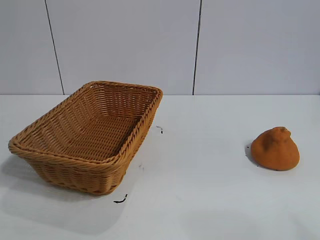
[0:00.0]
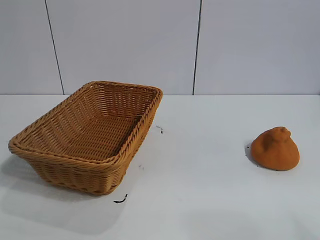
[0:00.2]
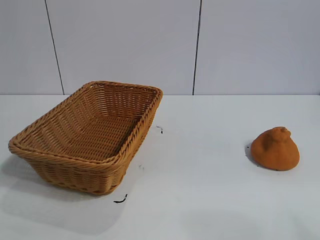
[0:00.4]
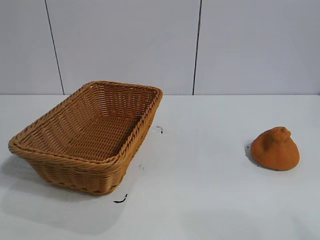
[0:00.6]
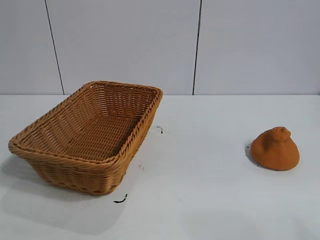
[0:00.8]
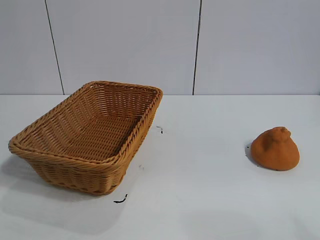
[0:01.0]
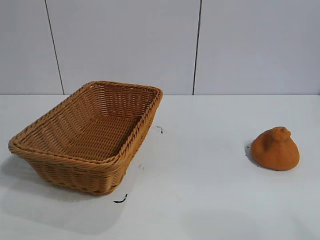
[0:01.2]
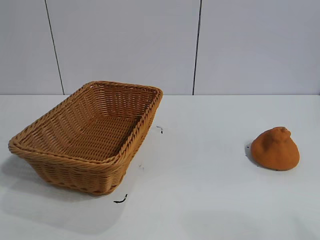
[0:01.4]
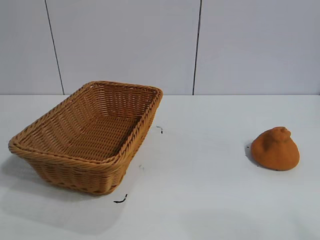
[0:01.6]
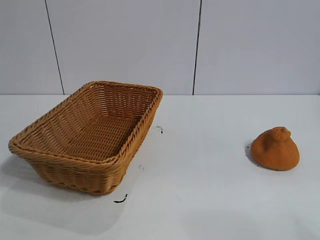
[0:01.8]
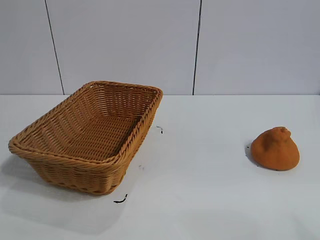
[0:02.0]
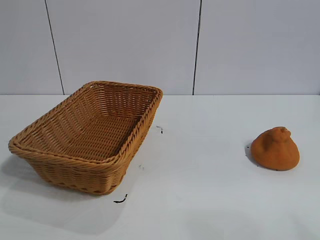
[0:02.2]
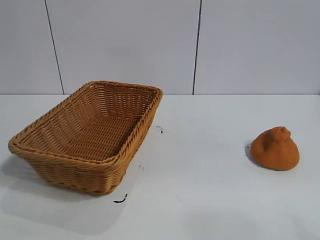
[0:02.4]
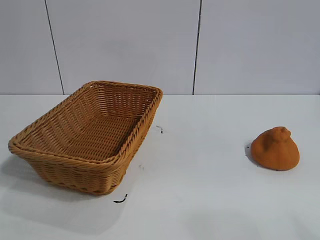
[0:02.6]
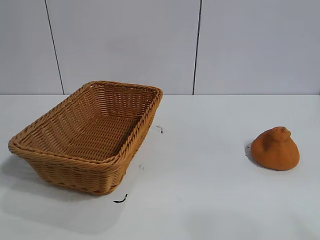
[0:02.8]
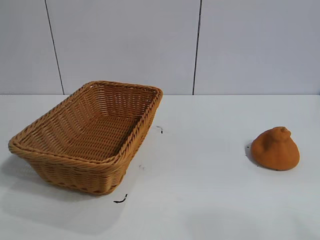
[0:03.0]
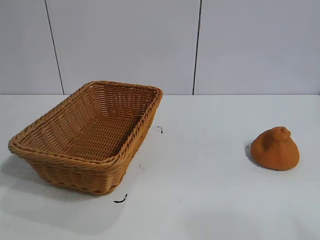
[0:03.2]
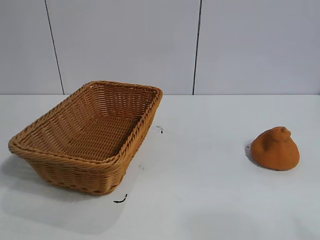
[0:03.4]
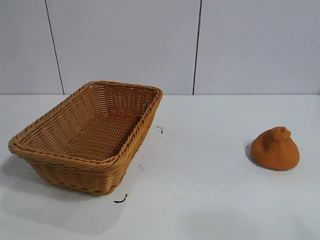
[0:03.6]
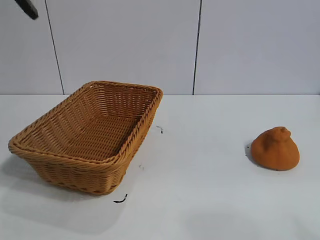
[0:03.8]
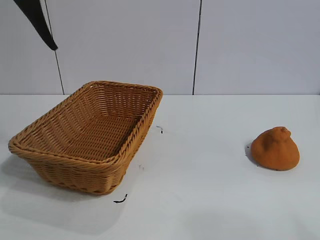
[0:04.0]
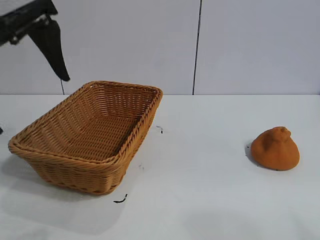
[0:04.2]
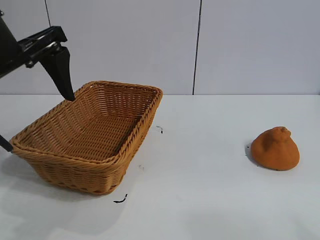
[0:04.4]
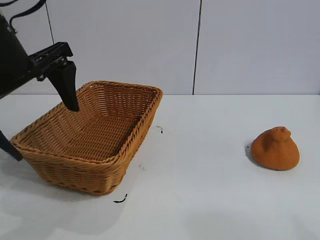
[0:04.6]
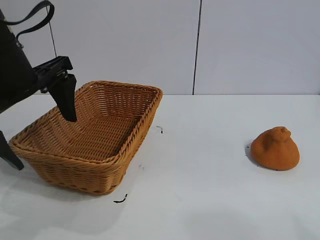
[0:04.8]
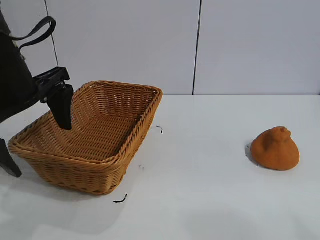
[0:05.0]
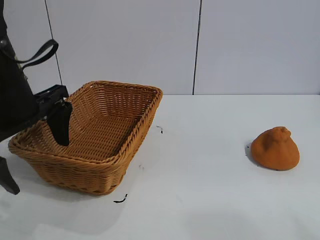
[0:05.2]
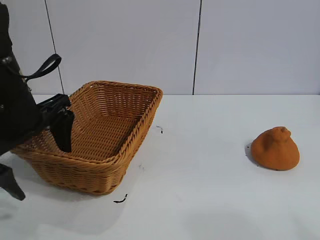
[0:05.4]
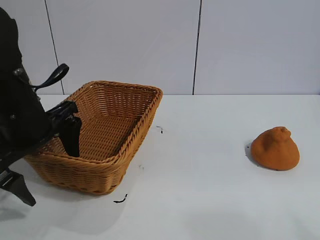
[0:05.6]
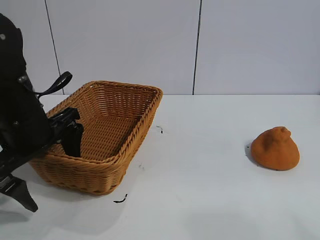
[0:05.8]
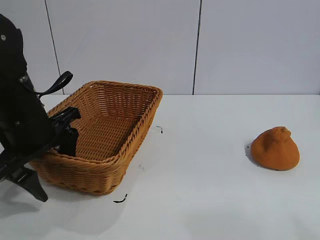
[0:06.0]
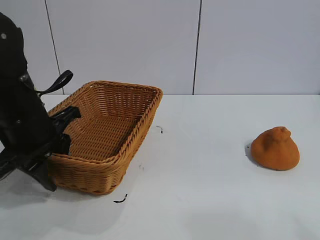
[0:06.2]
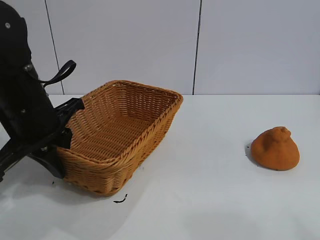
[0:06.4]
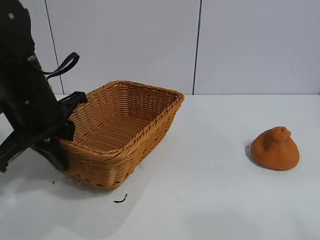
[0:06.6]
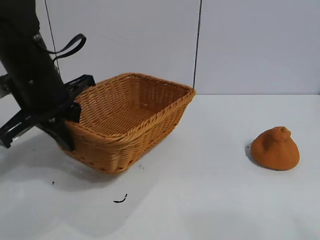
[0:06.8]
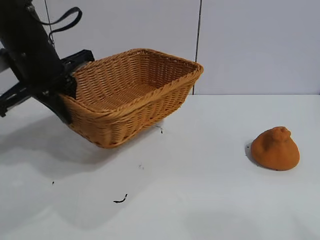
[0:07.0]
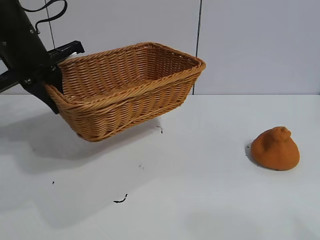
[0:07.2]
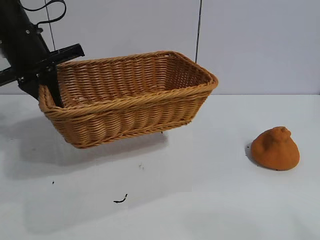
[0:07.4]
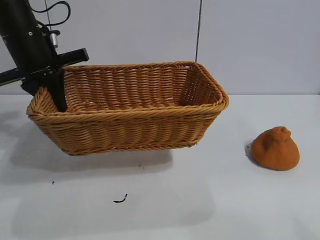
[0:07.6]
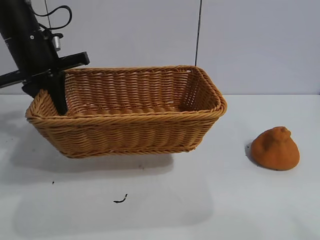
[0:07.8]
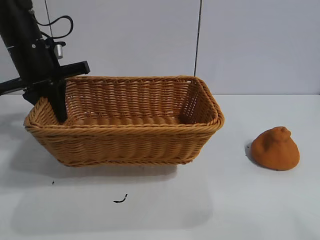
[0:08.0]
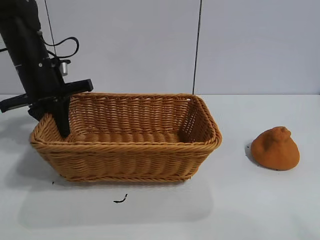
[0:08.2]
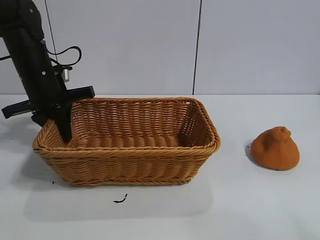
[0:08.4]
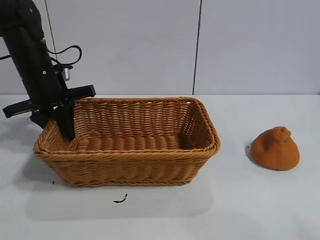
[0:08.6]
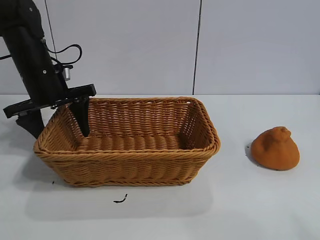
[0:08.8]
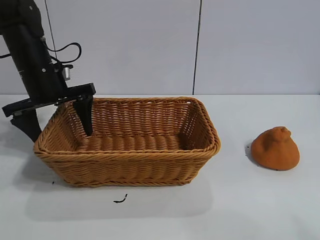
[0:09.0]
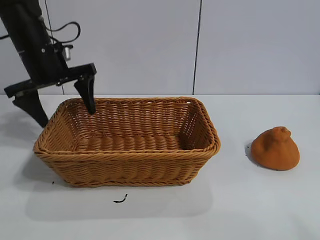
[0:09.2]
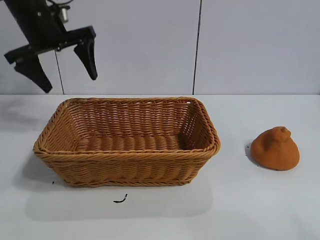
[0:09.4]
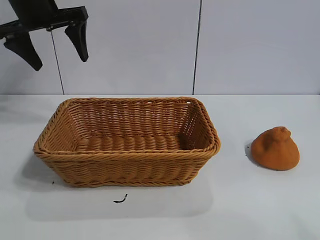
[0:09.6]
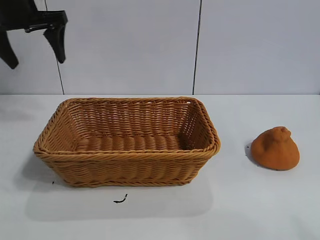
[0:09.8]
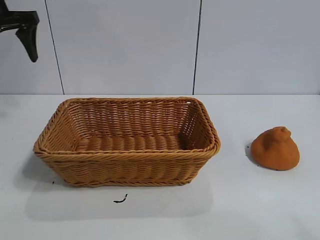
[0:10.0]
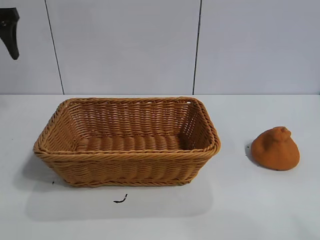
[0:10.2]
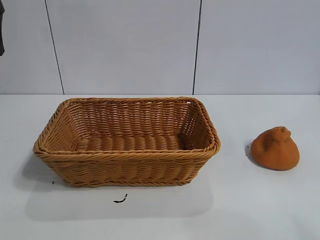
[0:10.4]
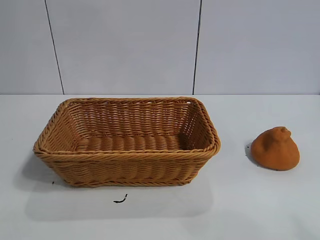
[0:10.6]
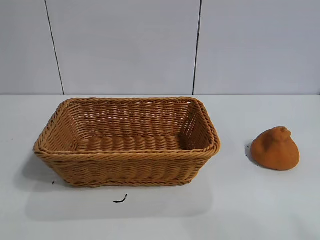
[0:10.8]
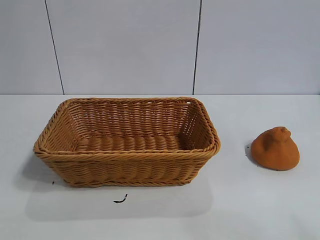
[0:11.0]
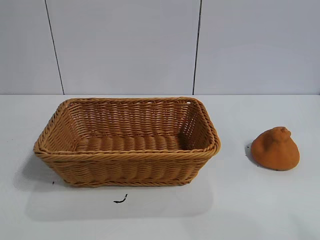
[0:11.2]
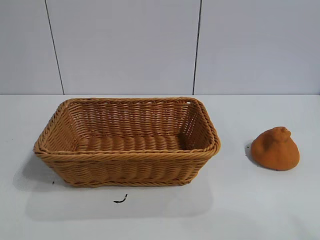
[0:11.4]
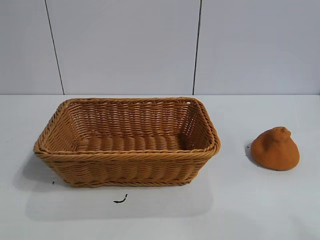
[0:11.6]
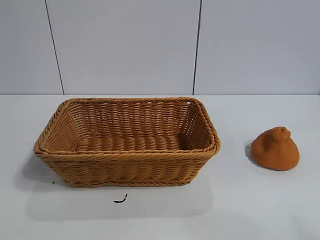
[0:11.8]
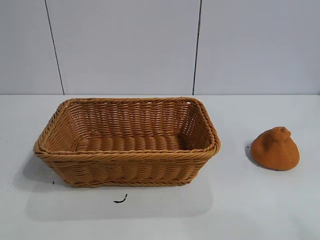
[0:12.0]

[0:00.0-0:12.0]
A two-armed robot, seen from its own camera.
Task of the whole recording: pick up the orange and put it into the basket.
Step, 0:01.8 to 0:06.2: Grasp the basket with left gripper.
Step, 0:06.4 to 0:08.8: Place the basket in the center of view with left gripper.

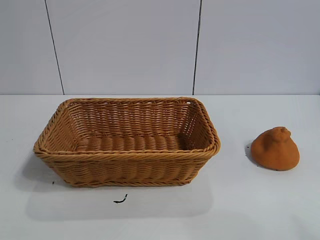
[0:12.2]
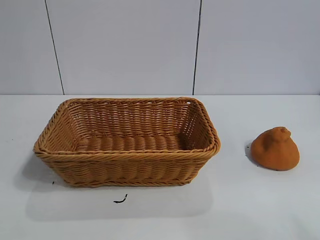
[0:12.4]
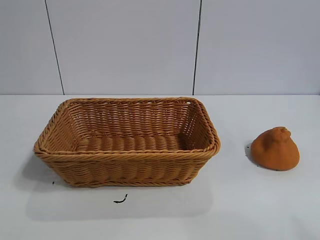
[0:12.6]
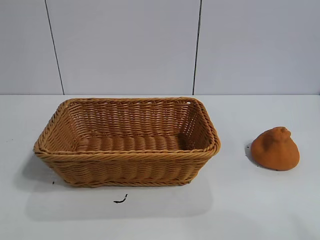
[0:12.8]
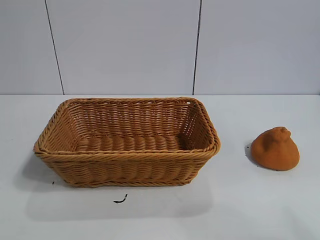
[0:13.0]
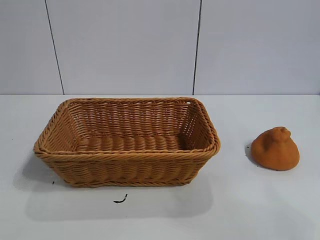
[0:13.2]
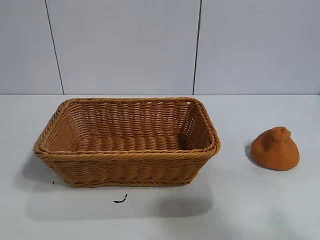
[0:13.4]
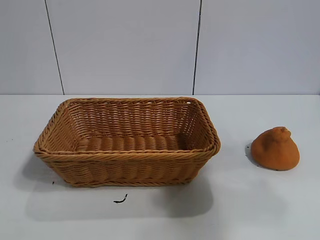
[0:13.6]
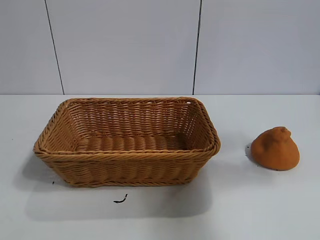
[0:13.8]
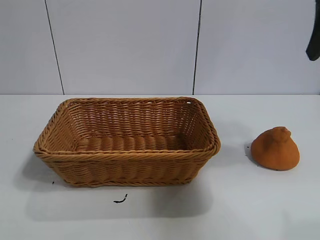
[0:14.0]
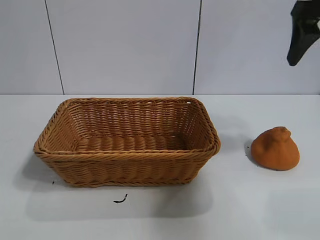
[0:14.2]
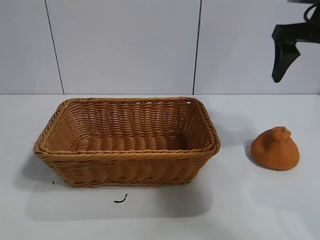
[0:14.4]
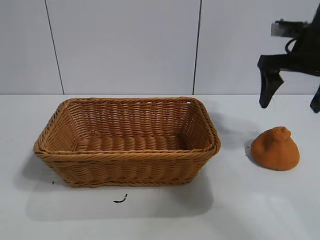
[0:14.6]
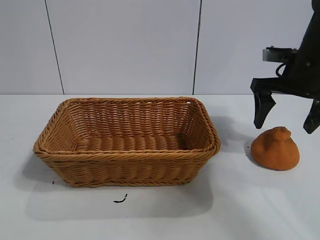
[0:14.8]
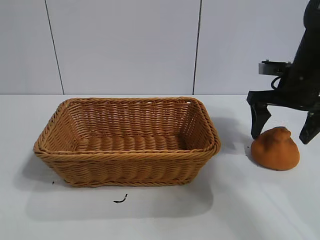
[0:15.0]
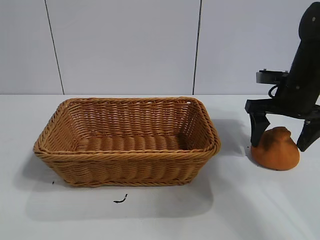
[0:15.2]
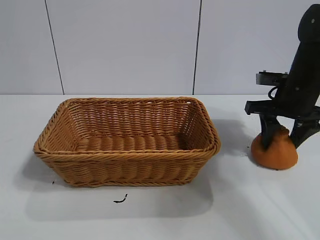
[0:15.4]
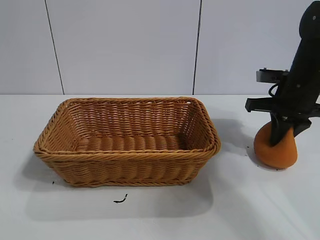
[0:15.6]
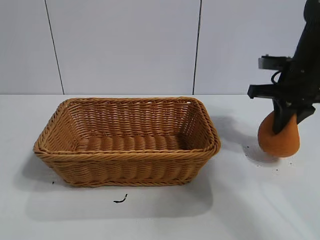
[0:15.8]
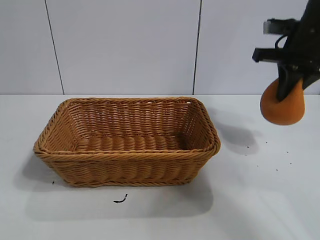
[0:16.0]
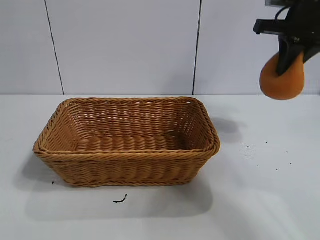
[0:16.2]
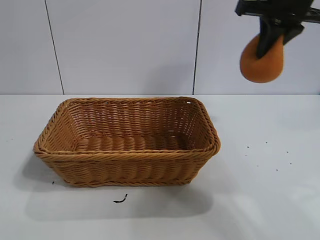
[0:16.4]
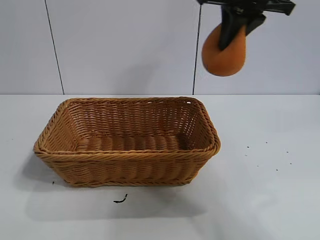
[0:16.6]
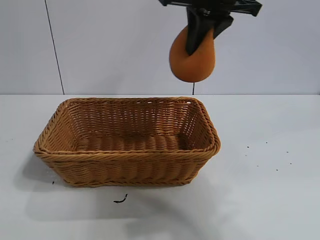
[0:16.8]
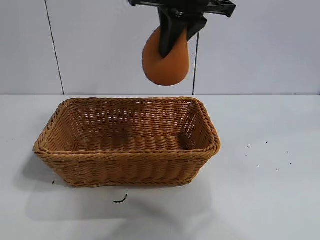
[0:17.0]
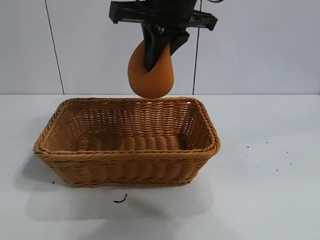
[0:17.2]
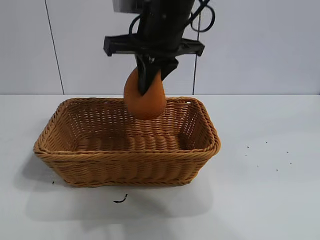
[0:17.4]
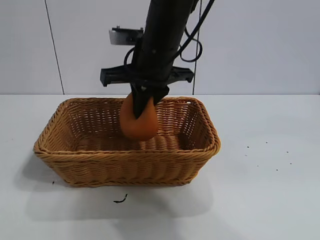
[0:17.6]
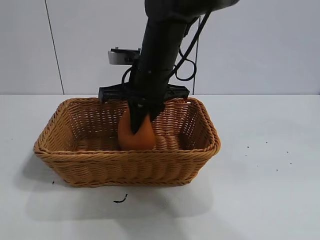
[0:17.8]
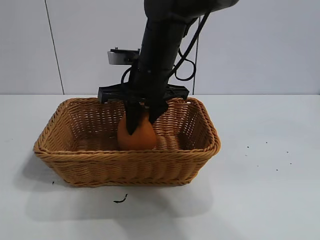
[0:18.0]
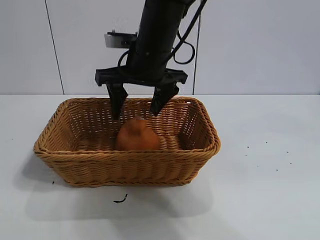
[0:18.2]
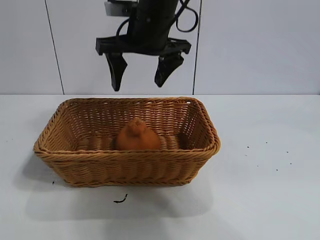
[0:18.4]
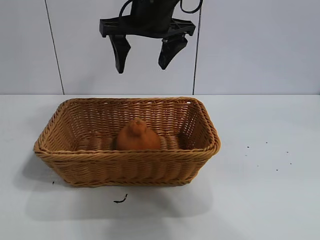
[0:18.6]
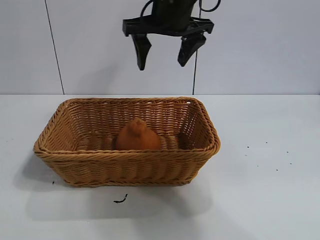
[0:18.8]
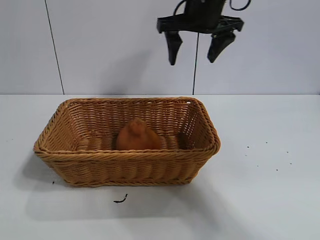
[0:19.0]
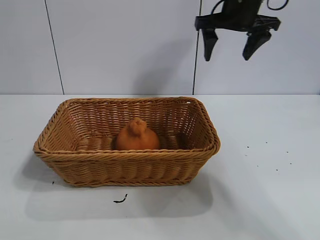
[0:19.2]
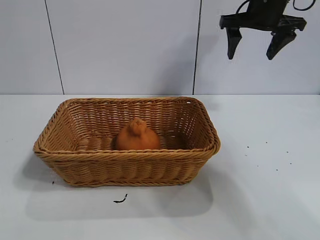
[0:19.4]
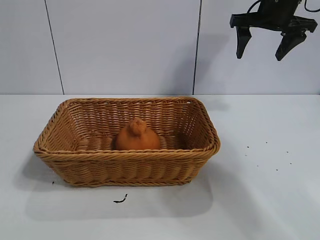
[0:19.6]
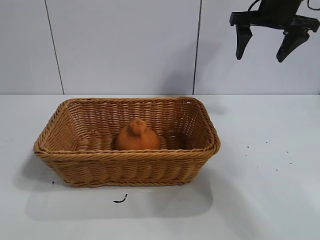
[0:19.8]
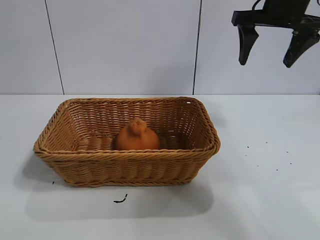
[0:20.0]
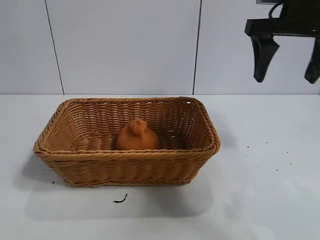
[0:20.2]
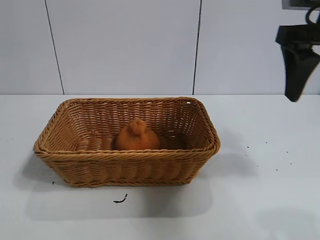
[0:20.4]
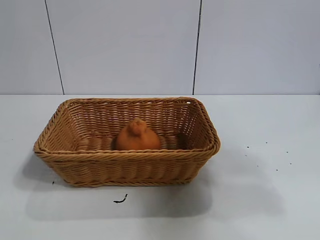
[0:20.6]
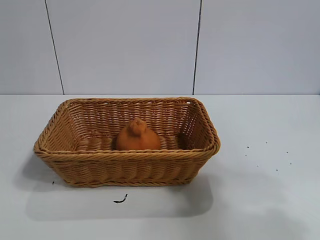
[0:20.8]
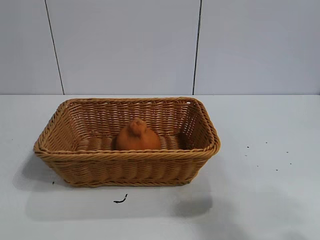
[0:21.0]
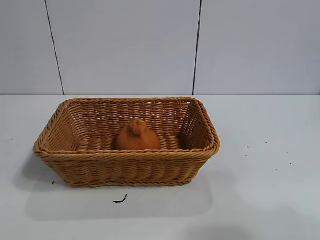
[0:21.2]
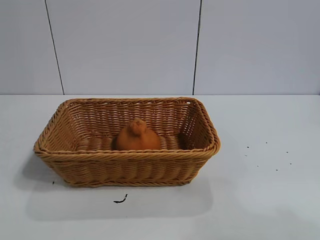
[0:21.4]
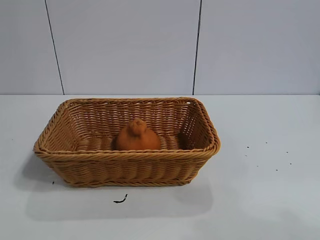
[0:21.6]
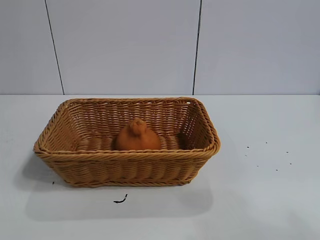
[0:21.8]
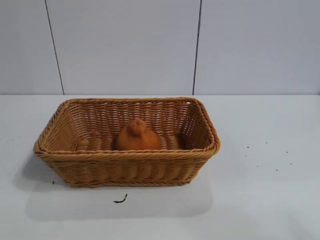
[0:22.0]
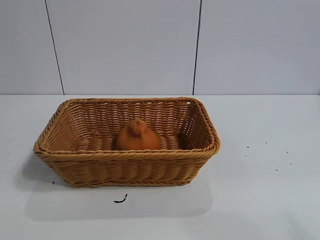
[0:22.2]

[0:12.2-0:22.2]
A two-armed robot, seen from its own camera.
Task of the whole recording: pick up the orange and put it into the basket.
Step, 0:12.2 to 0:15.6: Grasp the orange with right gripper.
Step, 0:15.8 to 0:18.0: Place the orange in the basket with right gripper.
